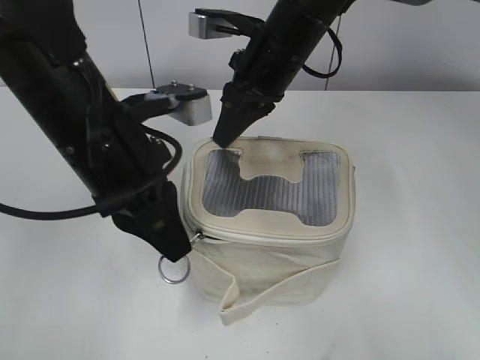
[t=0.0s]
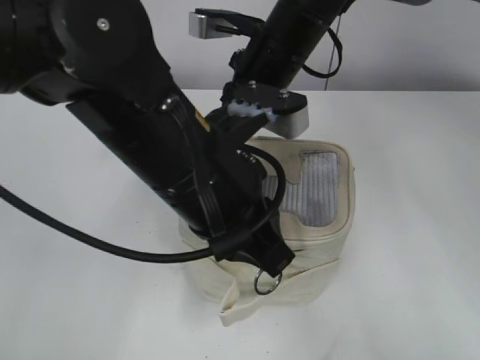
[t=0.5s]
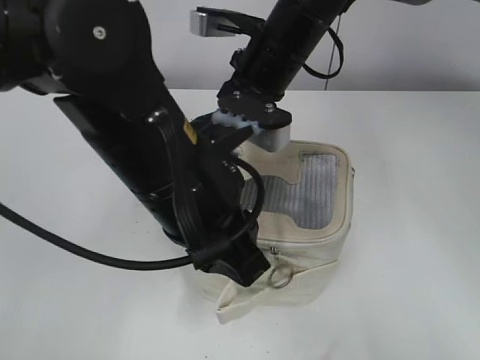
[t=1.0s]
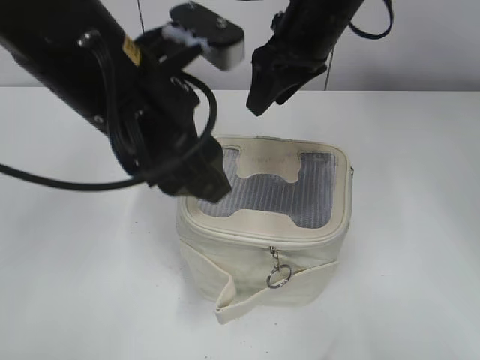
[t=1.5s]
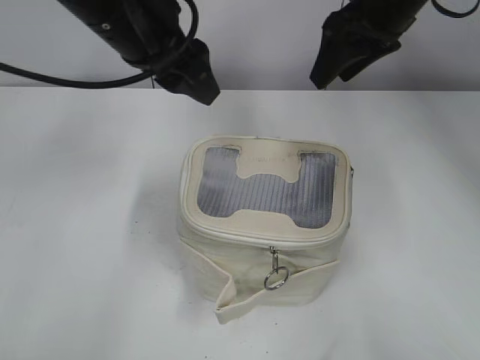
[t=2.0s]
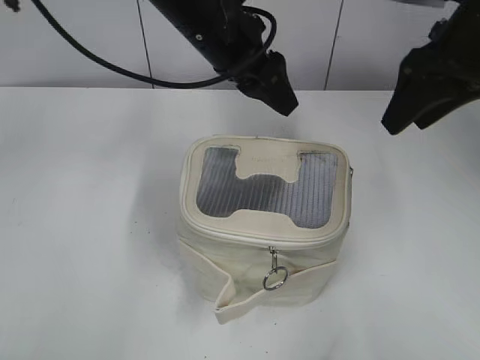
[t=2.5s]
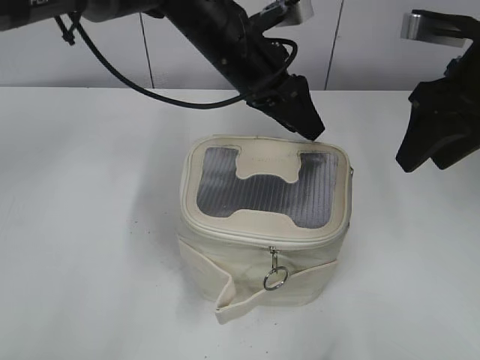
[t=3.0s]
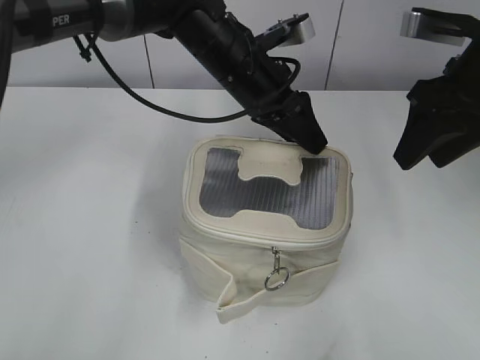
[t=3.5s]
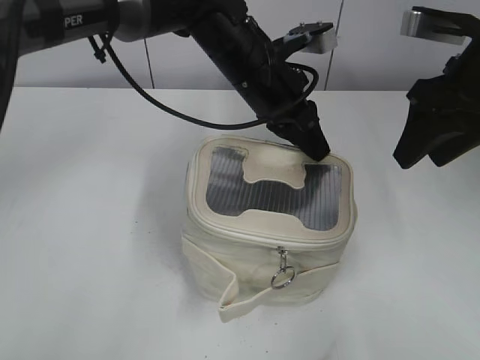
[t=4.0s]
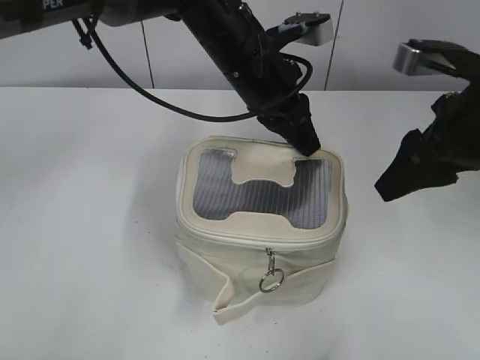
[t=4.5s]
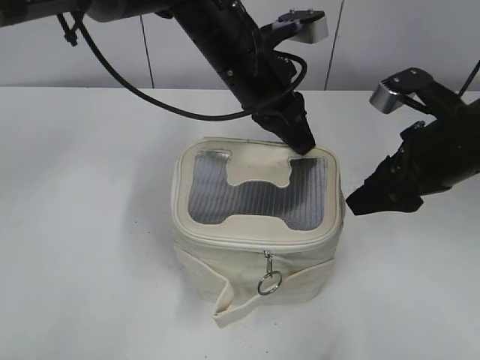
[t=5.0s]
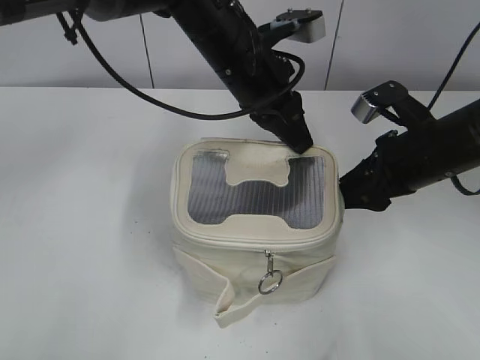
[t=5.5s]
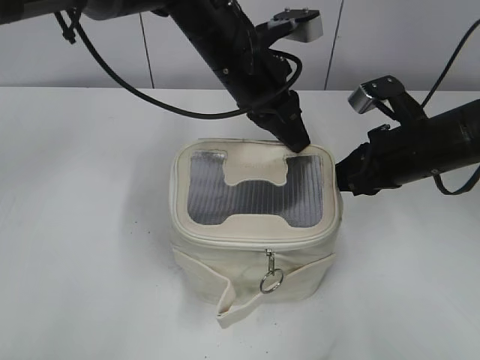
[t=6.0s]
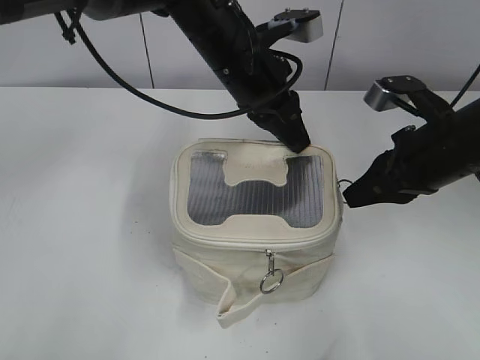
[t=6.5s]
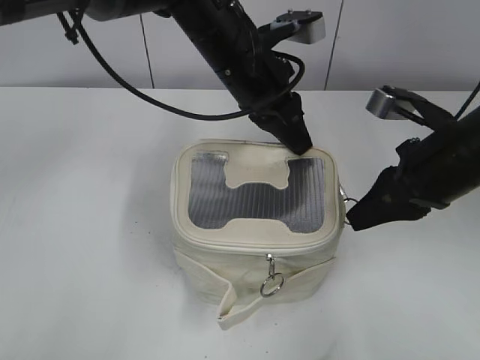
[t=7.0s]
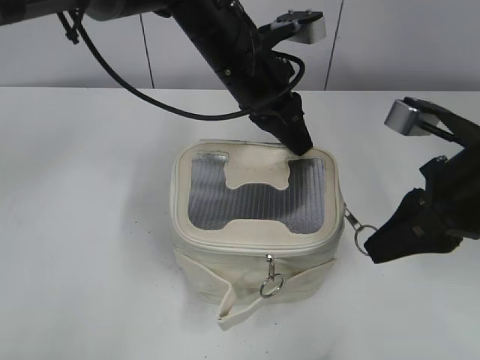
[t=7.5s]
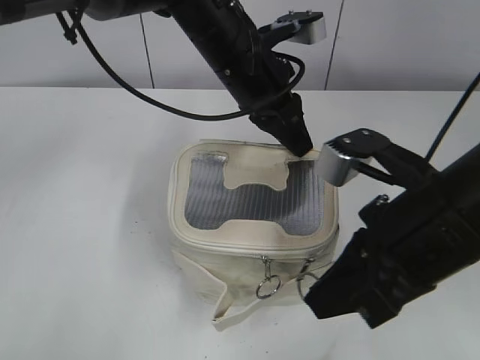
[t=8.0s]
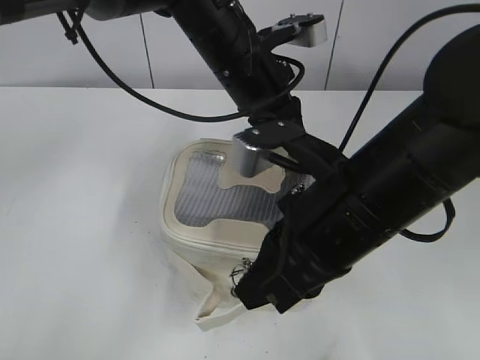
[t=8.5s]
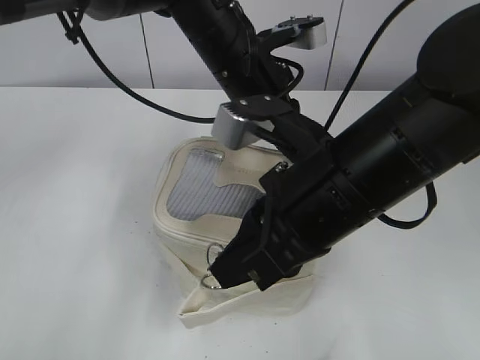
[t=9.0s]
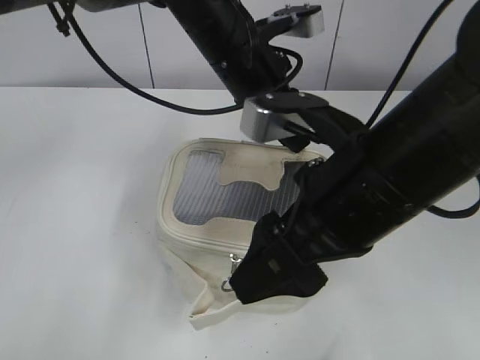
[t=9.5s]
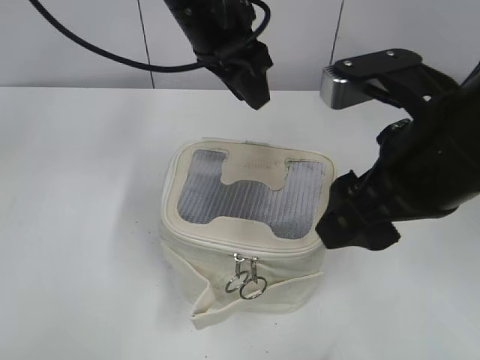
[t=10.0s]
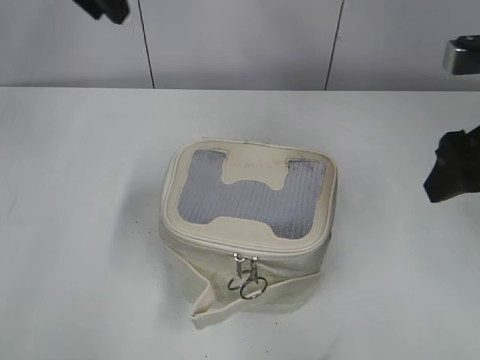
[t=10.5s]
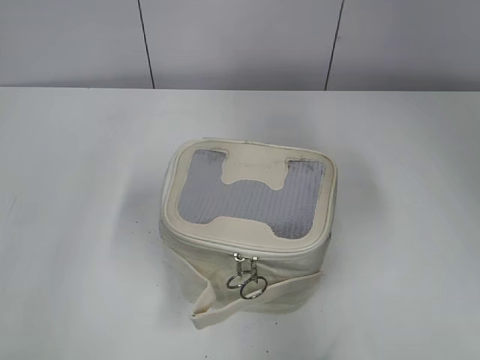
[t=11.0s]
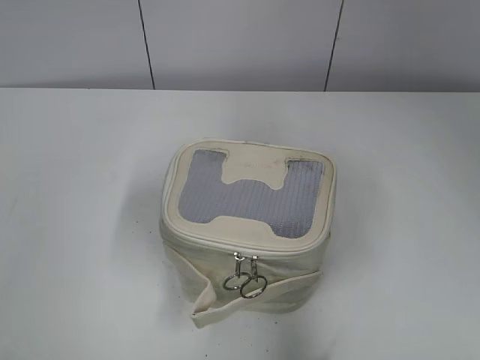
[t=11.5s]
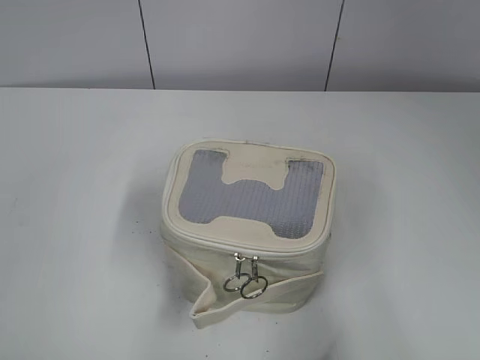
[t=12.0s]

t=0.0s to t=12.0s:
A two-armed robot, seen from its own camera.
Step, t=1.5s to t=9.0s: Zip up the bag with your right hand.
t=0.0s to t=2.0s: The left gripper heads forward and upward, covering roughly 10 cm, and opens. Meanwhile the right gripper travels to the right and upward by roughly 15 cm, and opens.
t=2.0s to t=4.0s: The left gripper is displaced to the right, downward and forward by about 15 cm, and closes up; the right gripper goes some 10 cm backward and to the right.
t=4.0s to t=6.0s: The right gripper goes some 10 cm downward, and closes its fingers.
t=6.0s to t=8.0s: The right gripper moves backward and upward, some 15 cm.
t=8.0s to t=10.0s: The right gripper reaches approximately 10 cm to the left, then returns, and opens its fingers. Meanwhile the left gripper travels upward by some 5 cm, and opens up.
t=10.0s to t=12.0s: The right gripper goes roughly 25 cm backward, to the right and upward. Meanwhile the left gripper shifts some 50 cm backward and to the left.

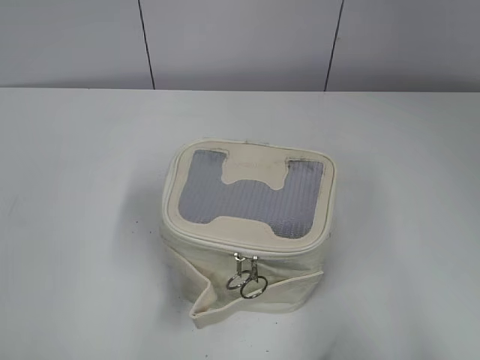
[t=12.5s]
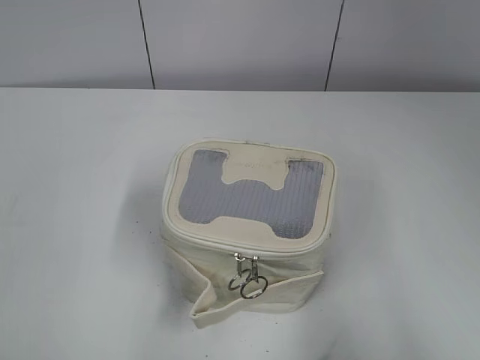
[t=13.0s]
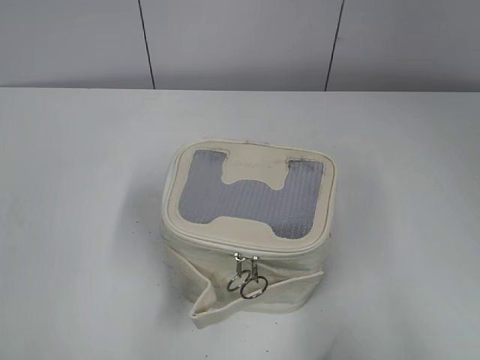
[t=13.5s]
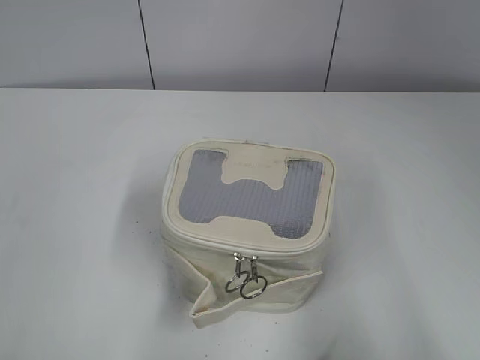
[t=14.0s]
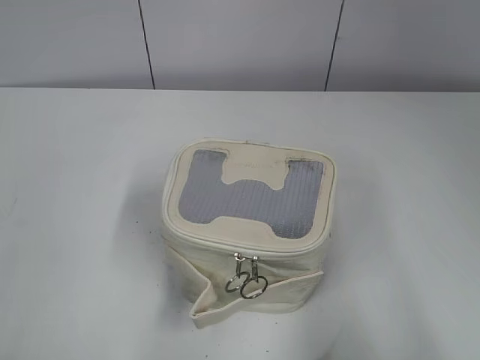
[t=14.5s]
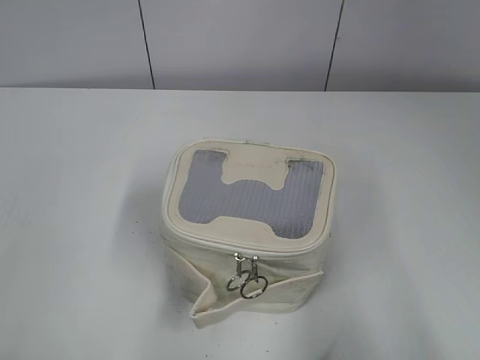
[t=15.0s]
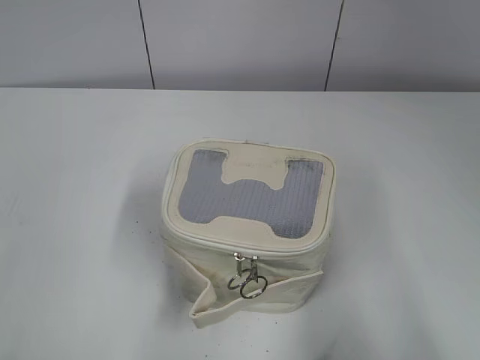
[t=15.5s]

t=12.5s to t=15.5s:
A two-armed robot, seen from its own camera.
t=14.0s to t=15.5s: The two grippers keep their place.

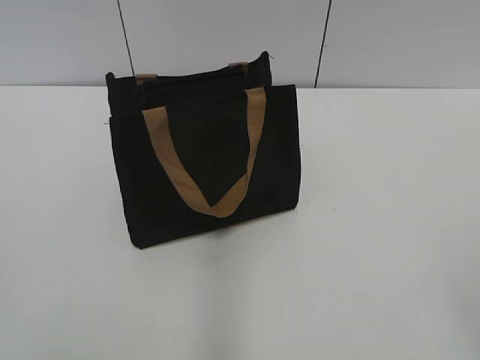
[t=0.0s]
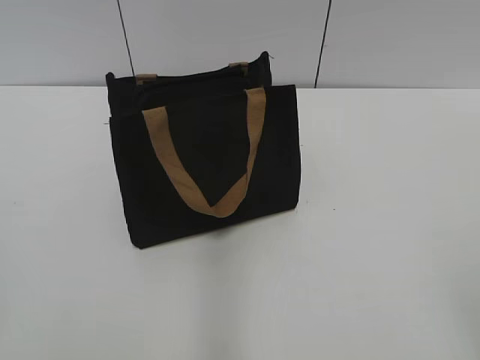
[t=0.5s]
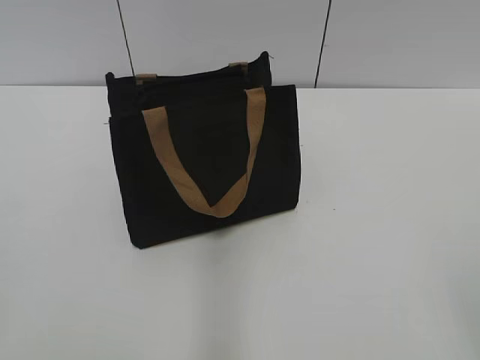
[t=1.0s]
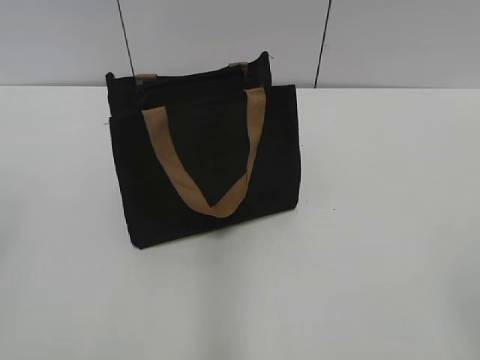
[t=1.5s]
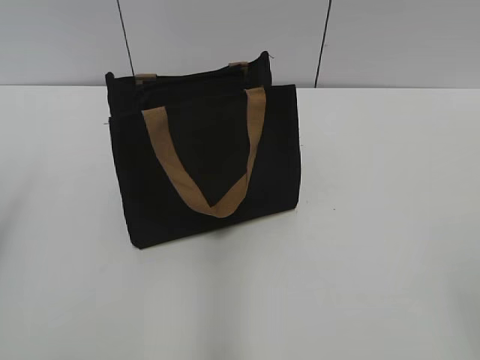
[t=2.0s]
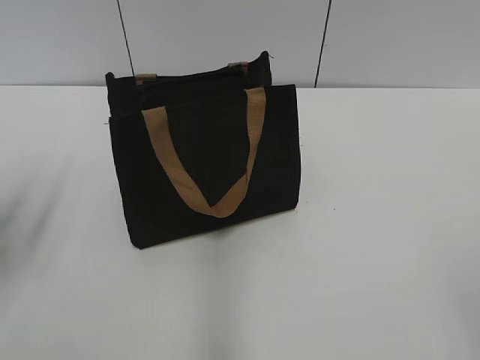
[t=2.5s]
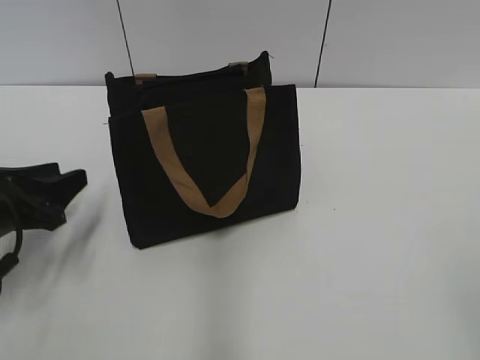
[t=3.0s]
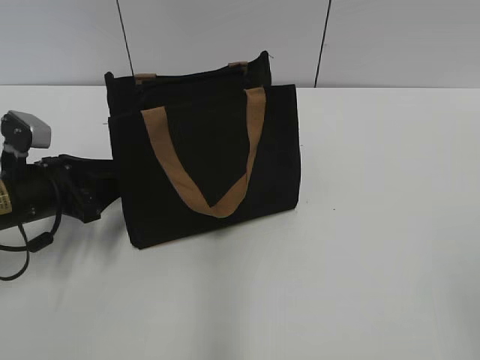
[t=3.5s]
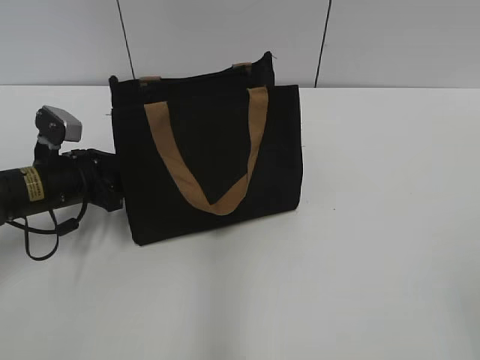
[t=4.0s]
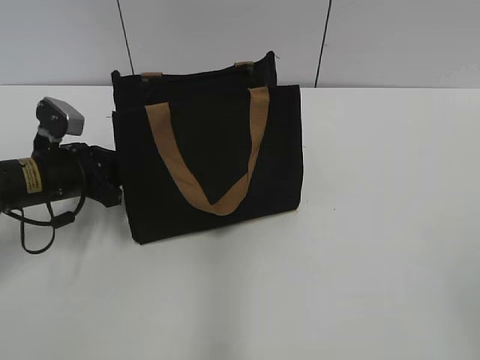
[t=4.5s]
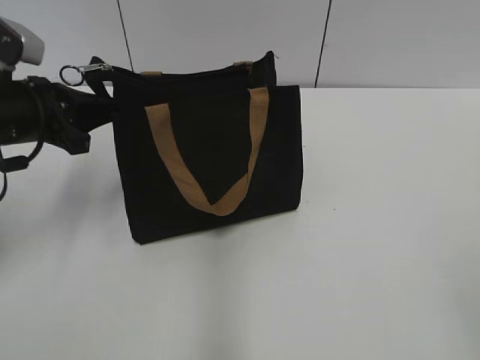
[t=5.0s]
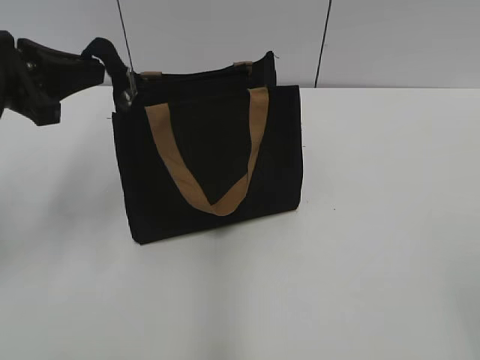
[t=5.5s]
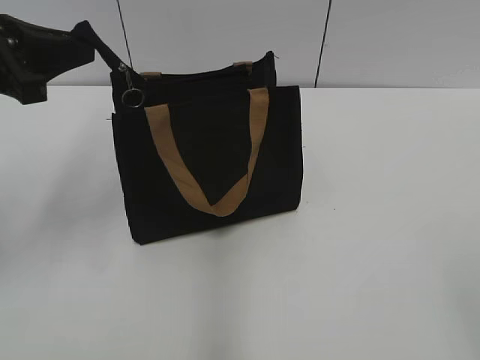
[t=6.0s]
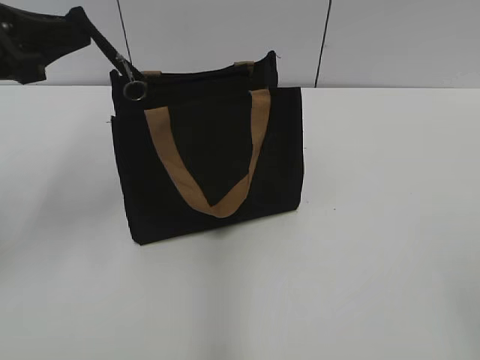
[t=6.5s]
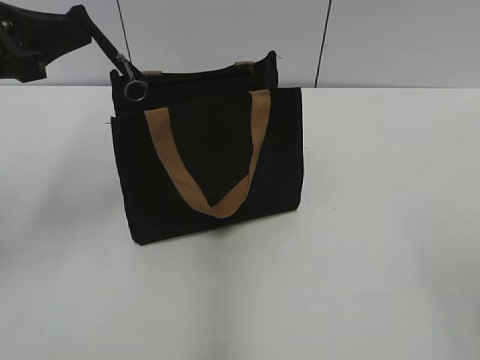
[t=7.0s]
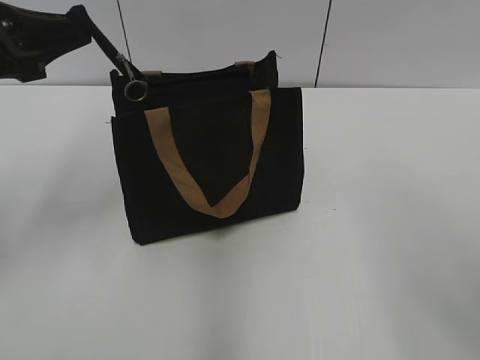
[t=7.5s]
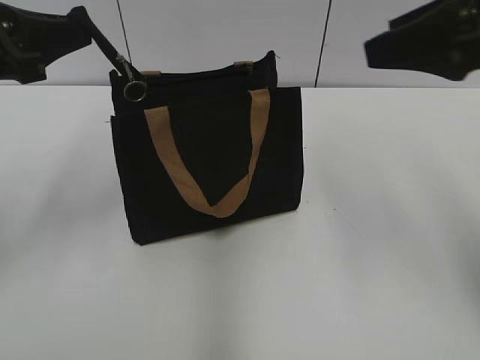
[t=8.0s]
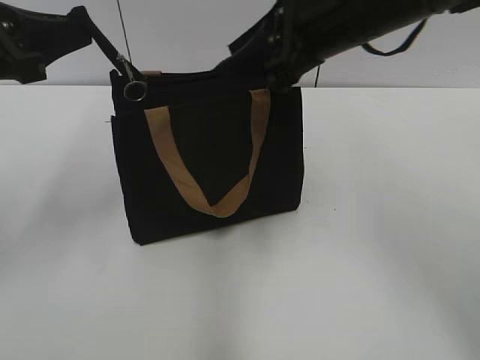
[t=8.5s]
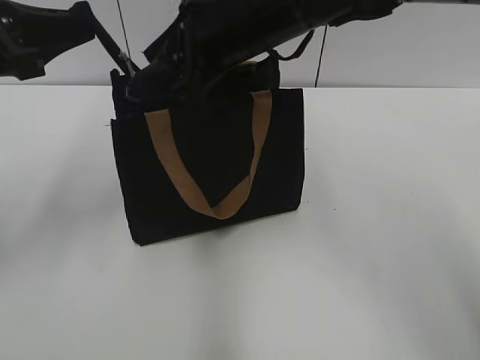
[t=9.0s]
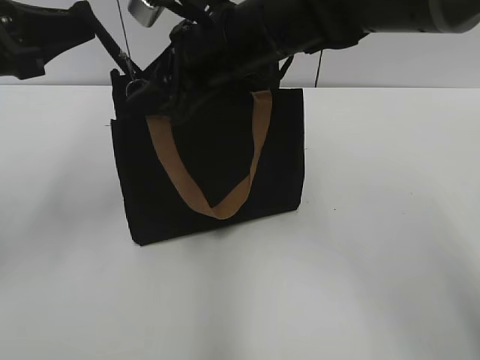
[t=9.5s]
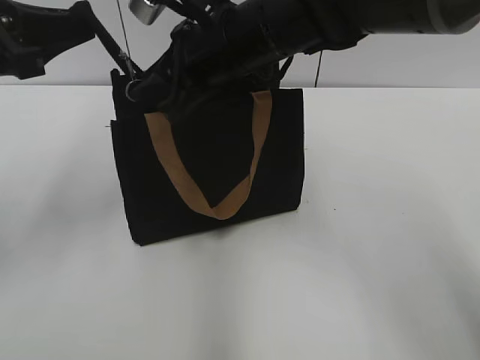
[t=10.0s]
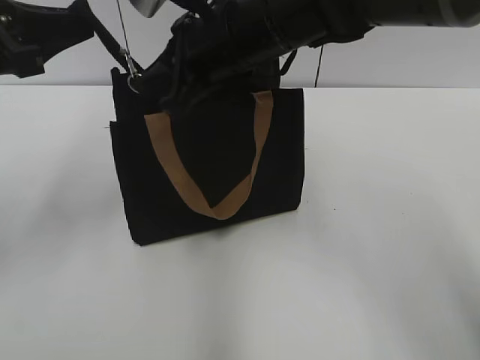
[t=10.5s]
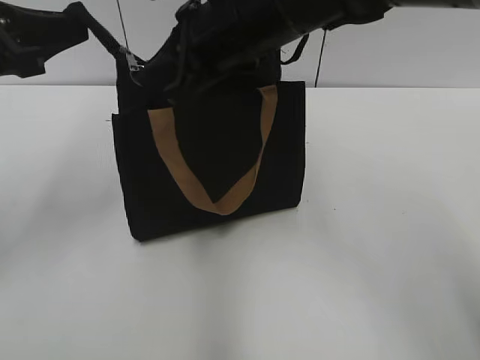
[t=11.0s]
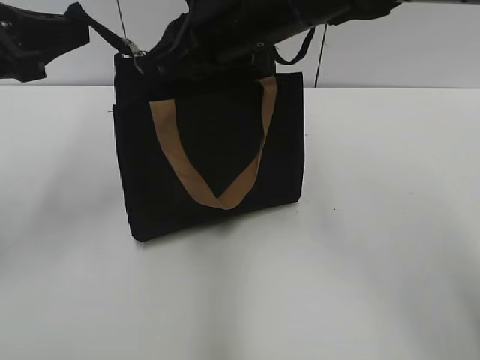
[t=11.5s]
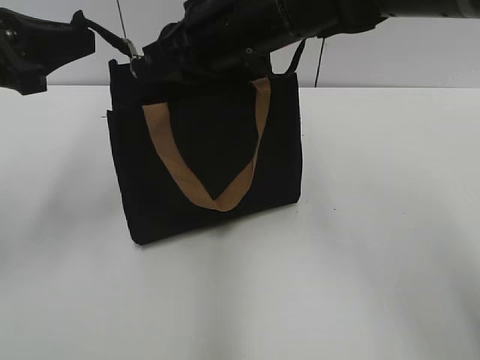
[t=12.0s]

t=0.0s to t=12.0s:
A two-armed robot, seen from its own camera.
t=2.0s to t=4.0s: The left gripper travels forward, downward and to the right by some 30 cm.
t=4.0s to t=6.0s: The left gripper travels upward by some 20 cm, and closes up.
t=6.0s to t=8.0s: The right gripper heads forward, covering some 25 cm.
t=8.0s to t=10.0s: The right gripper heads to the left and forward, covering some 25 cm, and closes its fingers.
t=10.0s to t=12.0s: The right gripper closes.
